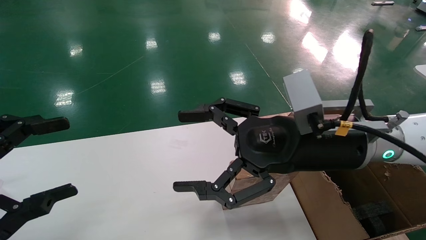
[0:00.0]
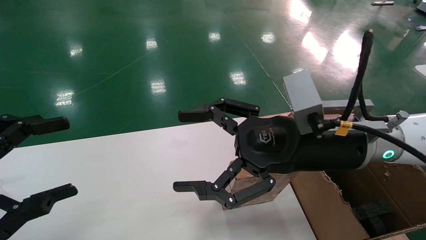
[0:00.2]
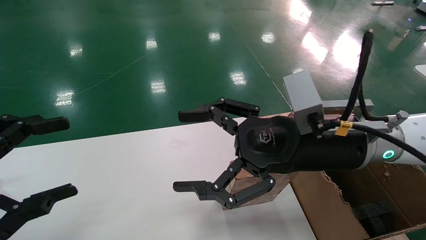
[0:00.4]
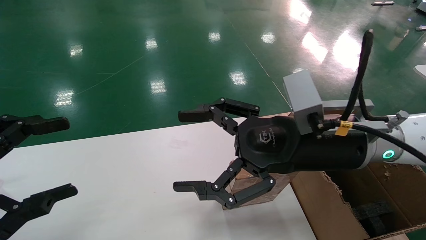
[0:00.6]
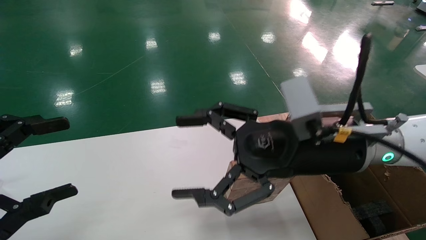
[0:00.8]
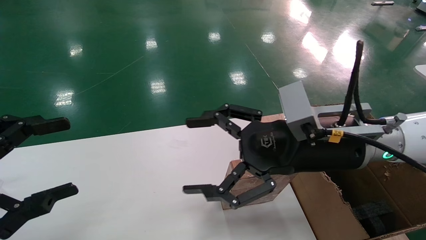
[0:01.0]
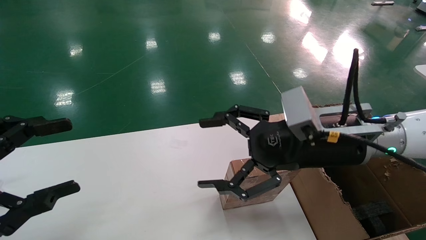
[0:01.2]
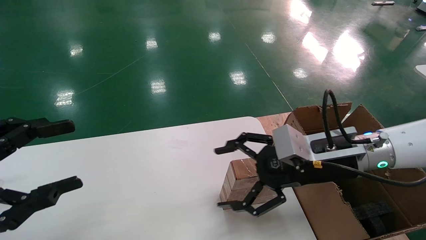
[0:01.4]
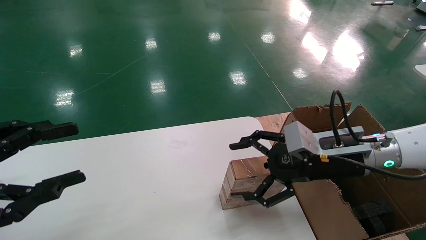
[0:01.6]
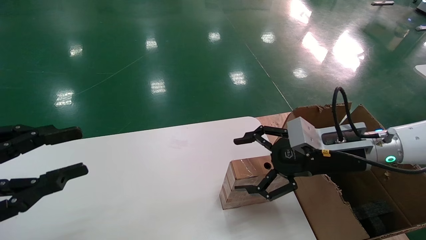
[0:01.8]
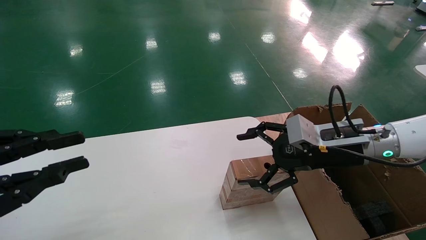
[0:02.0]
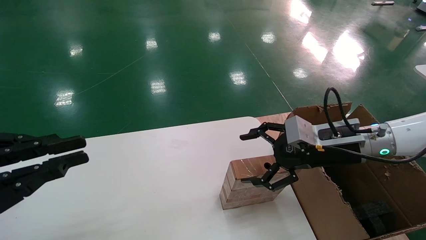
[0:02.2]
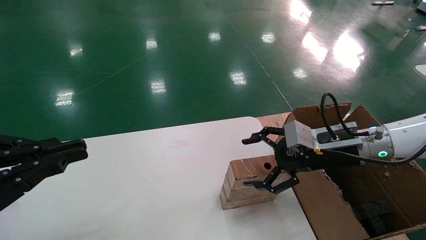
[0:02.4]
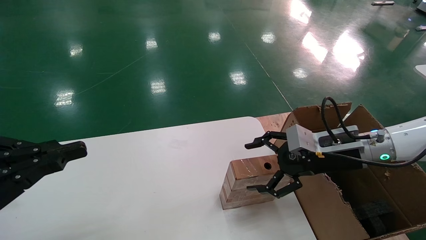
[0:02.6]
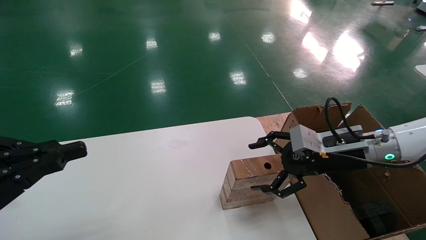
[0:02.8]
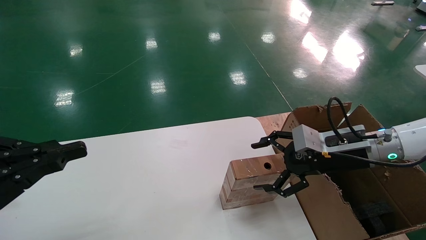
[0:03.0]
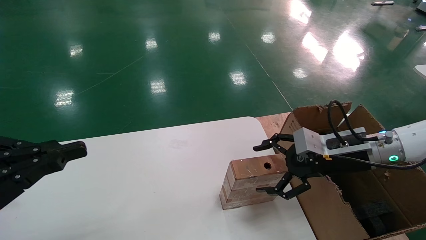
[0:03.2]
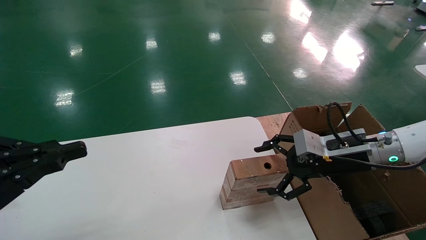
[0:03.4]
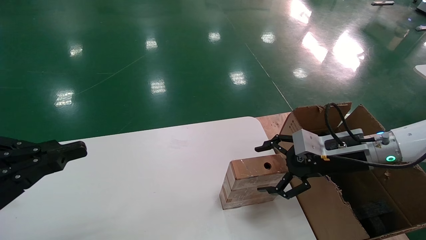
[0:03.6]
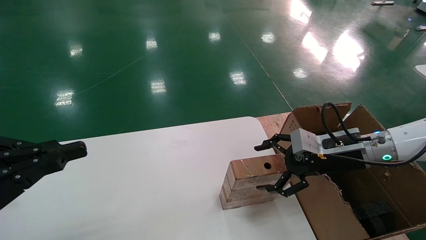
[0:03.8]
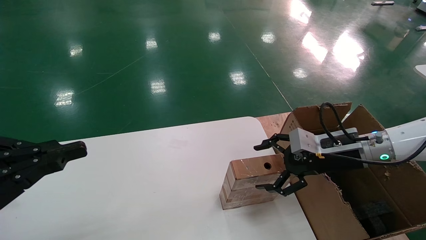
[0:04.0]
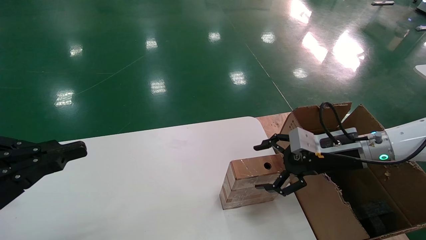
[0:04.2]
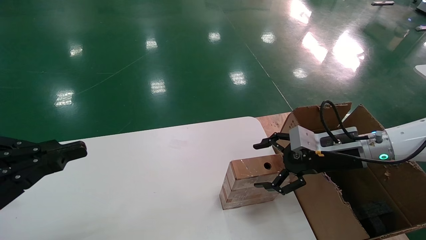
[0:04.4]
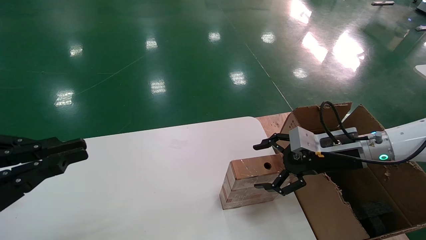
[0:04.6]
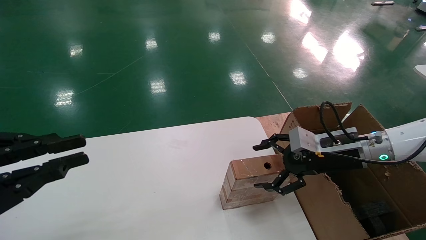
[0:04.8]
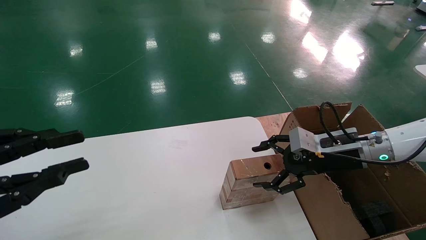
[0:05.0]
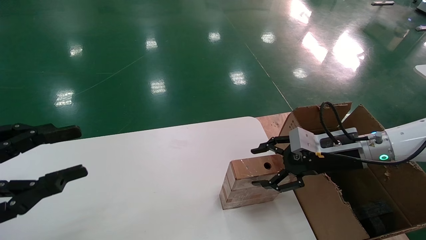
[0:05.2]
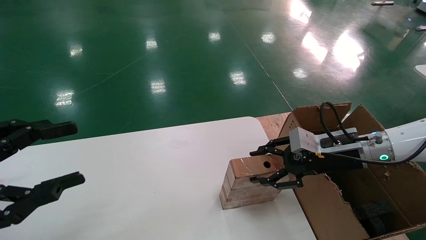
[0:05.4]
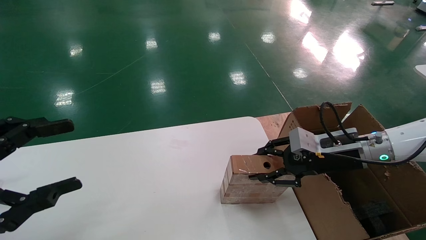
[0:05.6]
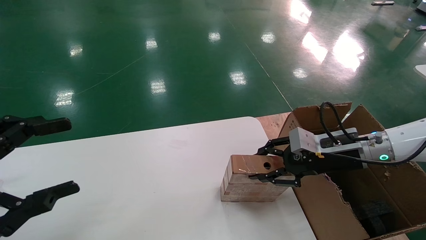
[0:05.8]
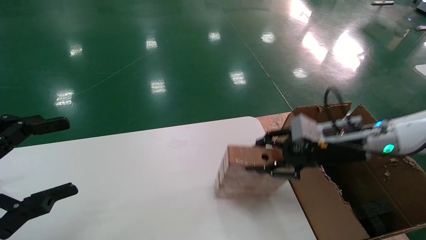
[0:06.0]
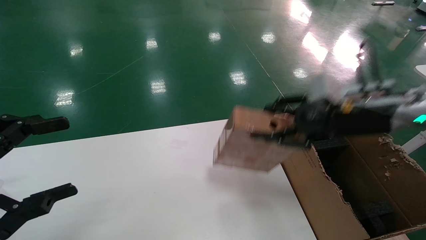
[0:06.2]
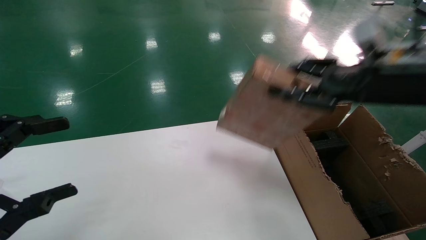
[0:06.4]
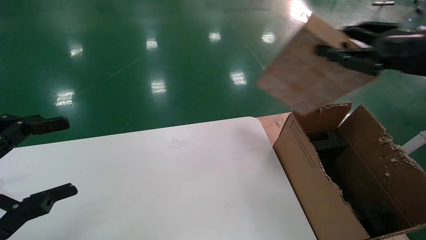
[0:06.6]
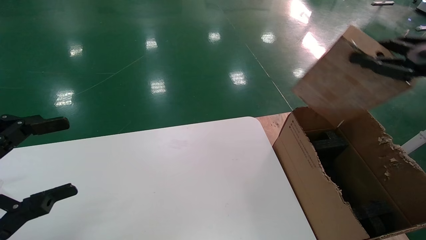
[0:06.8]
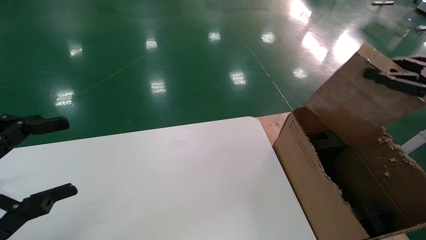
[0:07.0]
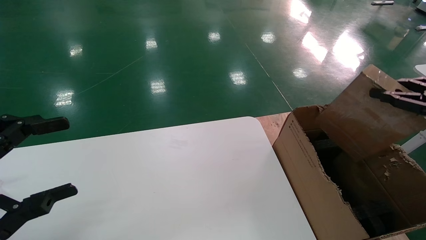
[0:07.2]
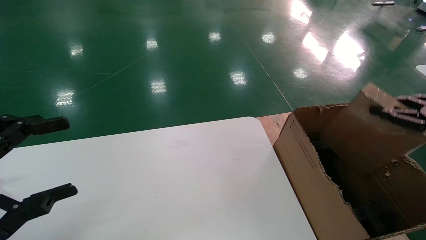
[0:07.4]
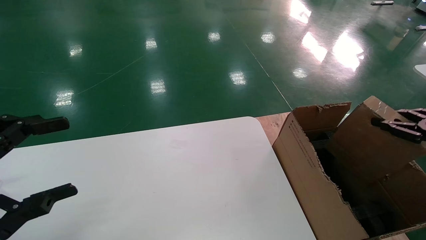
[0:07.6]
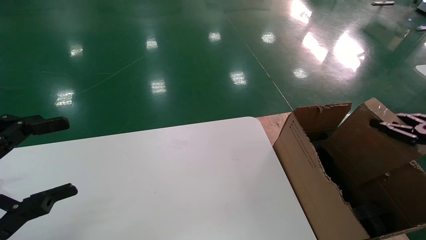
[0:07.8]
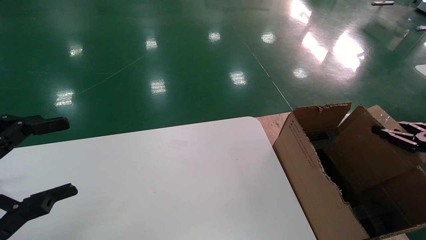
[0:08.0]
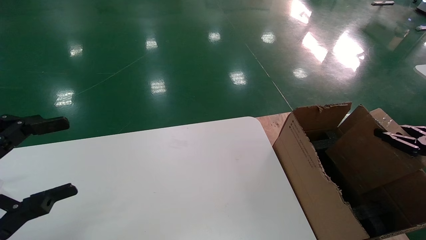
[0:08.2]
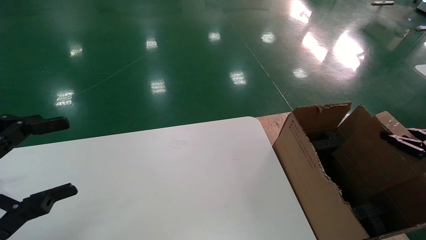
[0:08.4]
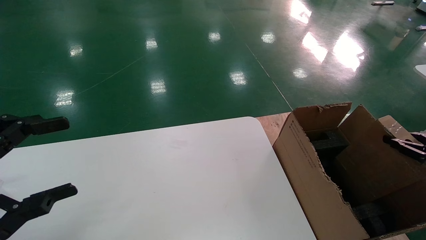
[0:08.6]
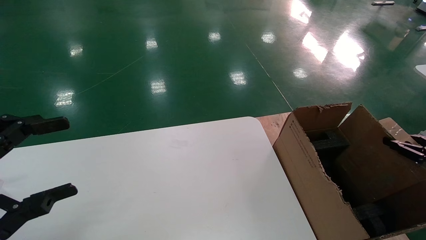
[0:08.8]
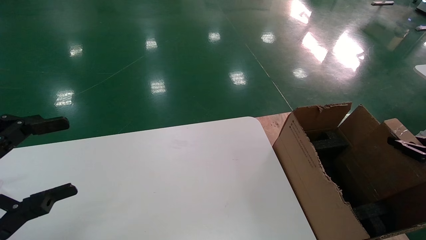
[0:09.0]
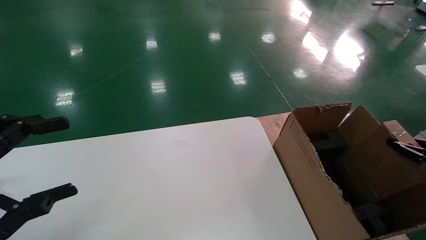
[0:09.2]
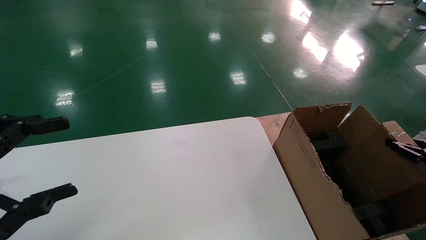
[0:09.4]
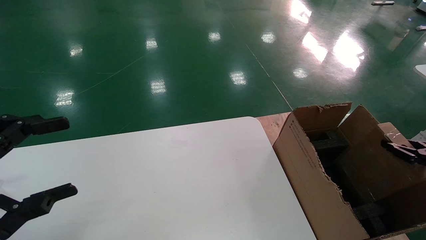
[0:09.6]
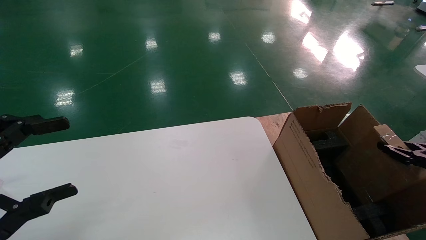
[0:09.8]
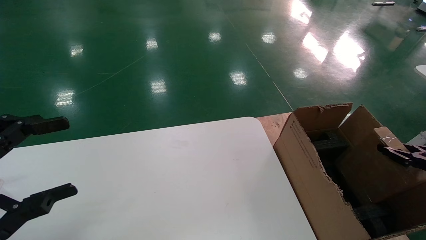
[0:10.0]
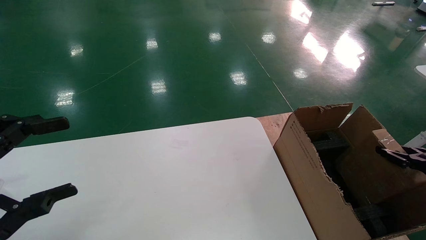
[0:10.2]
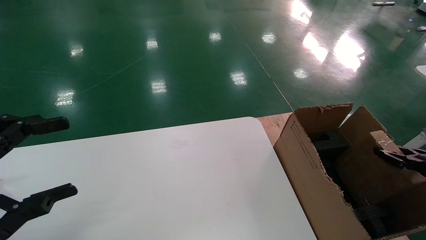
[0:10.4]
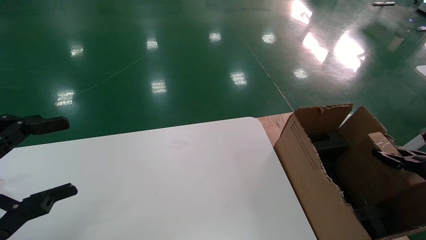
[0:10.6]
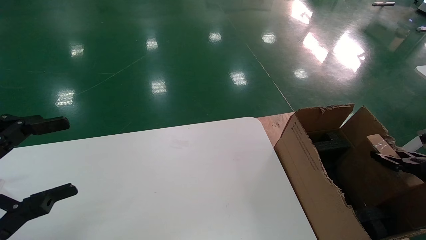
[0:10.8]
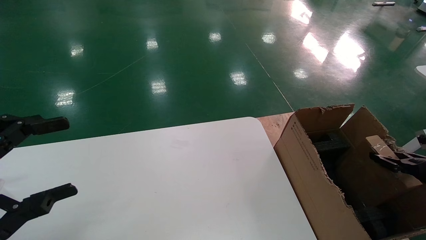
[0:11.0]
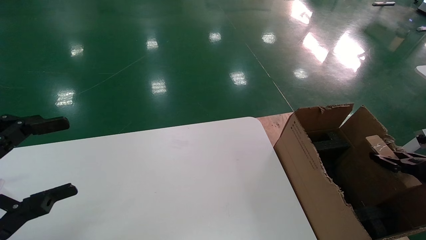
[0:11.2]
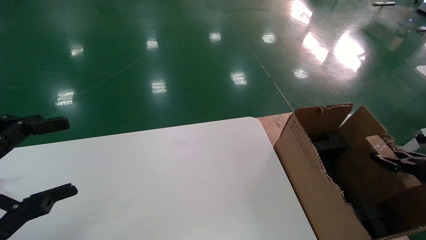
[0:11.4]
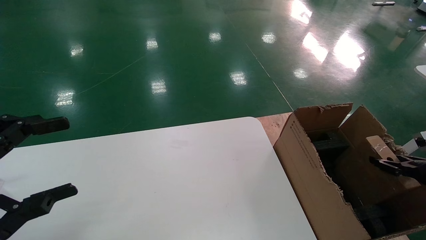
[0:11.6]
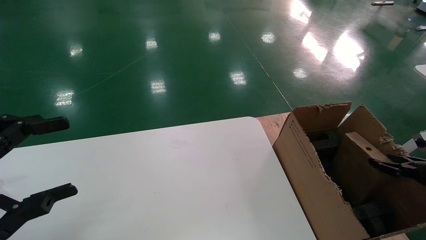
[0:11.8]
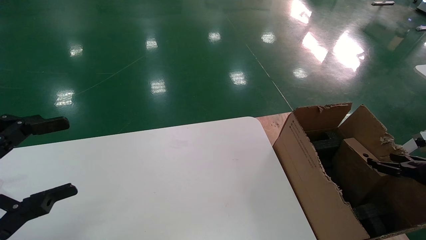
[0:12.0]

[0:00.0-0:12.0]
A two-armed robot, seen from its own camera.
Task of the whole recording: put the box on the table into the big box.
Step, 0:01.2 to 0:05.6: Pick up the mouse and the power cord paper box.
0:00.0 to 0:01.6: The right gripper moves to the right and downward, some 10 cm.
0:01.6 to 0:03.0: The left gripper closes up; the right gripper shifts some 5 cm to the right.
0:03.0 to 0:04.4: The grippers move only a little.
0:04.4 to 0:06.0: The right gripper closes. The left gripper opens.
0:06.0 to 0:07.6: The right gripper moves to the right and backward, roughly 25 cm.
0:07.6 to 0:09.0: The right gripper is displaced downward by approximately 10 cm.
0:09.0 to 0:10.4: The right gripper shifts by approximately 5 cm.
0:10.4 to 0:12.0: The right gripper opens its fingers.

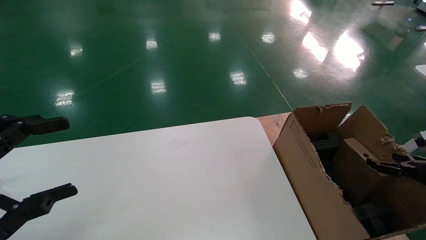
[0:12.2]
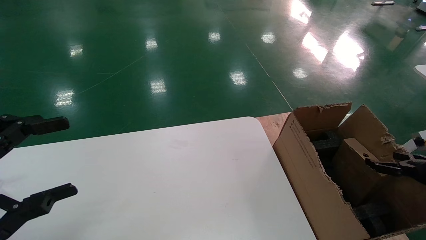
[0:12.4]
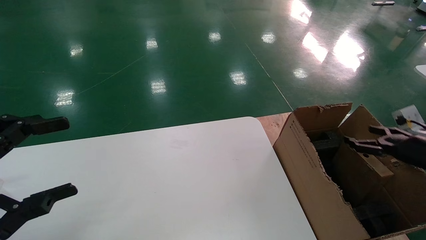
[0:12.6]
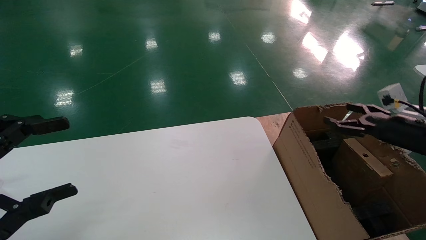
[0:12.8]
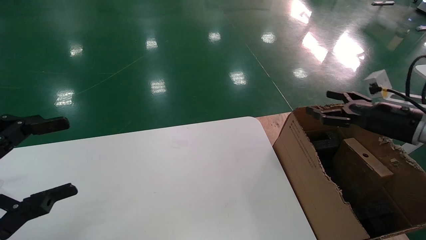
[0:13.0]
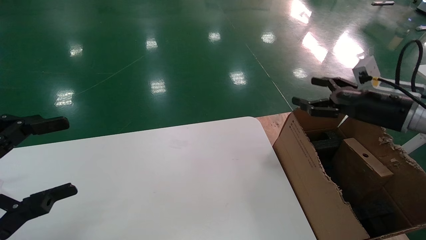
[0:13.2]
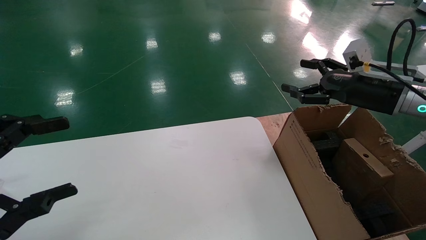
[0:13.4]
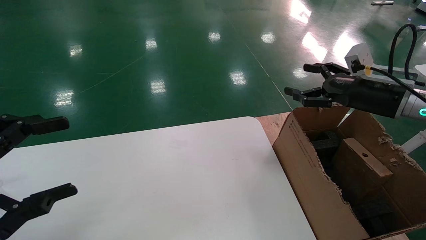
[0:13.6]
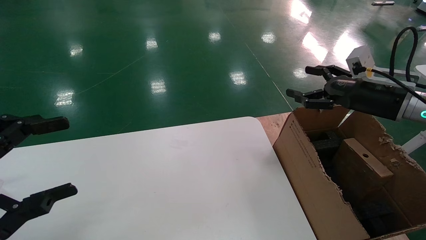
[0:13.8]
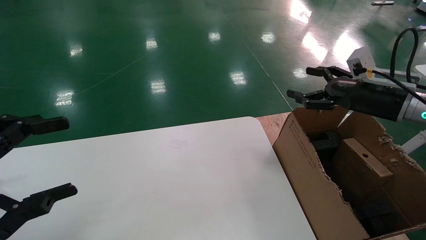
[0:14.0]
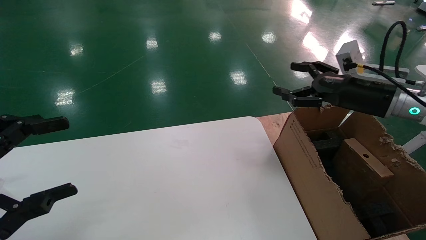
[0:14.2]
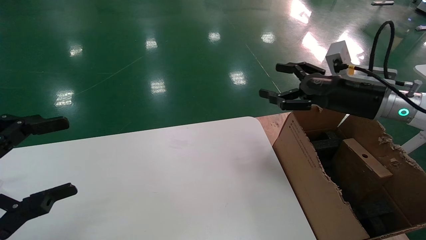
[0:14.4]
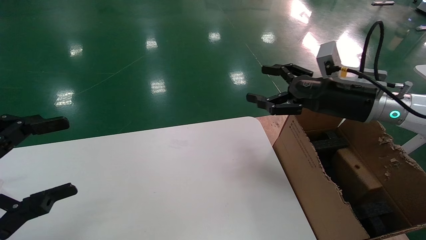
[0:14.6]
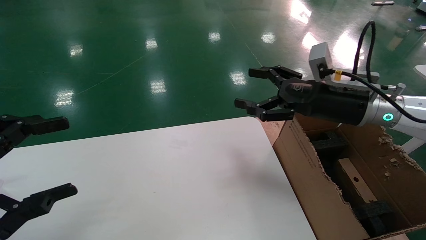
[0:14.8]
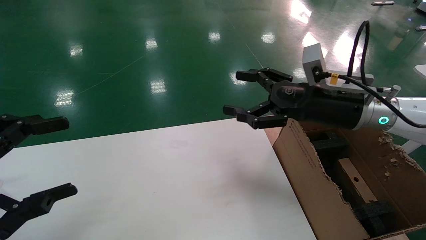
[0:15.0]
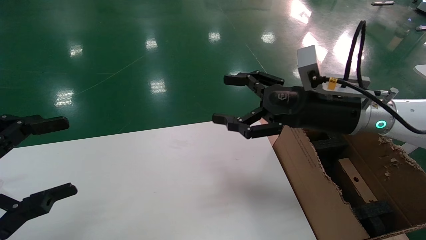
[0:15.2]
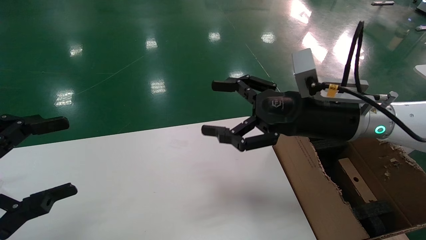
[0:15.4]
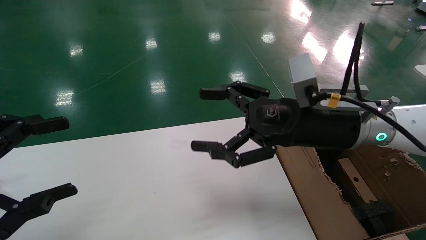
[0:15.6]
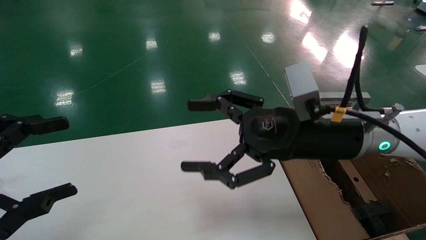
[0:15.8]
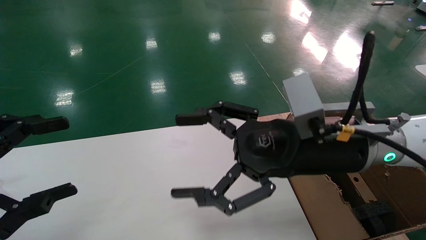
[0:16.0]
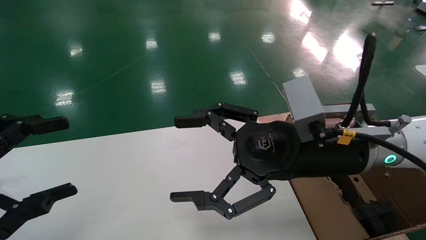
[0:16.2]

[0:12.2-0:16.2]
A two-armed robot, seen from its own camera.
Task of the whole recording: put the box on the table into the big box.
0:12.2 to 0:13.6: The right gripper moves upward, to the left and forward, some 25 cm, and opens.
0:13.6 to 0:14.8: The right gripper goes roughly 10 cm to the left.
0:14.8 to 0:16.2: The right gripper goes some 15 cm to the left and backward.
